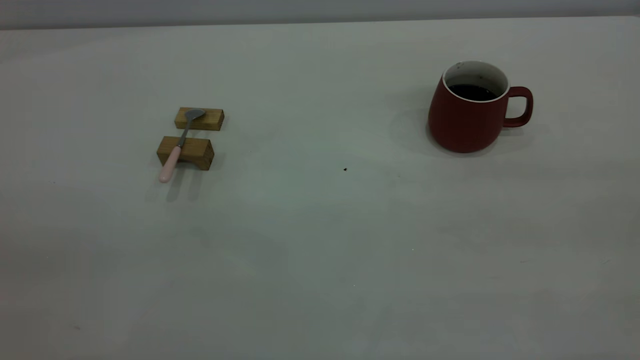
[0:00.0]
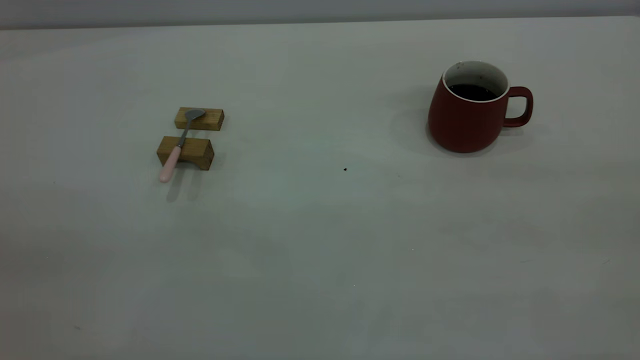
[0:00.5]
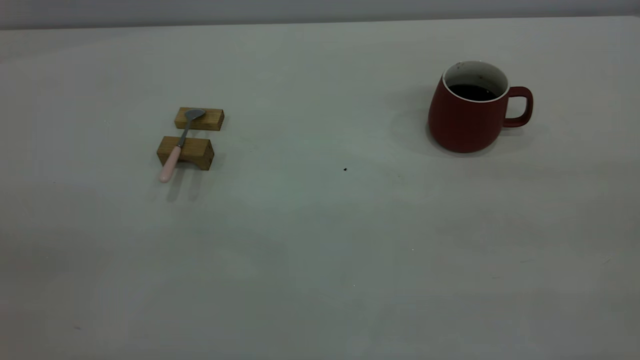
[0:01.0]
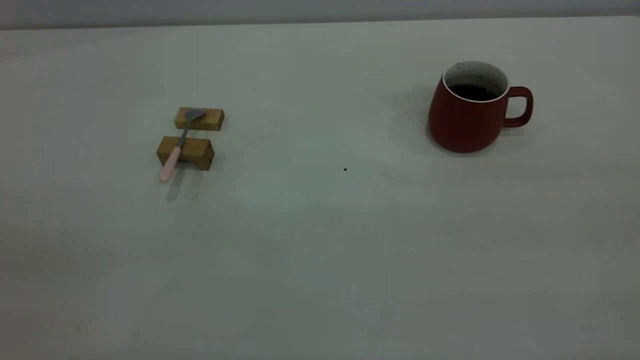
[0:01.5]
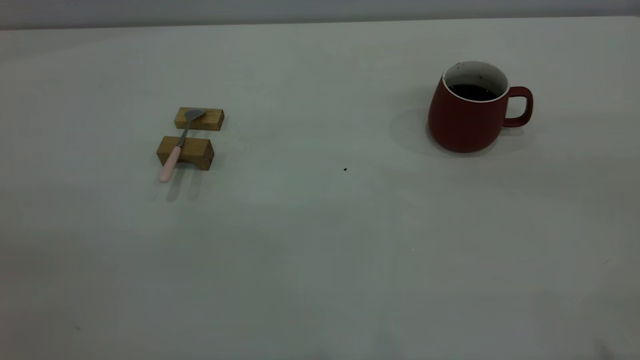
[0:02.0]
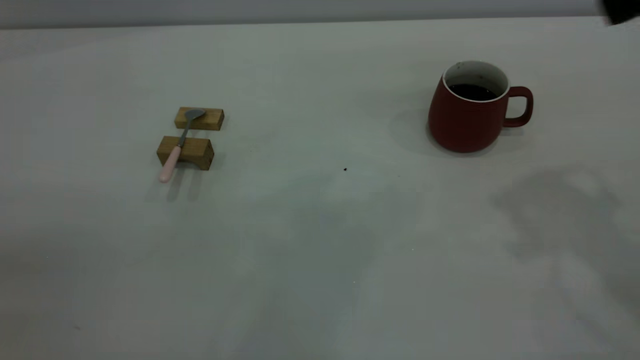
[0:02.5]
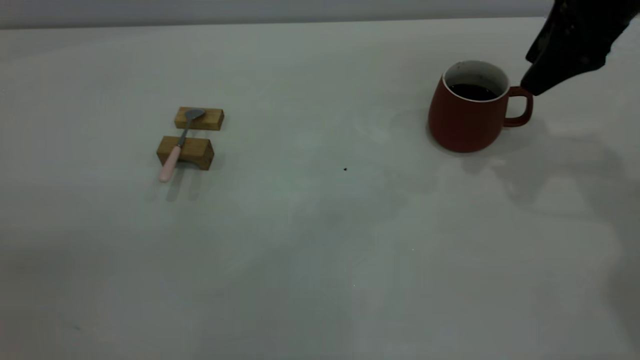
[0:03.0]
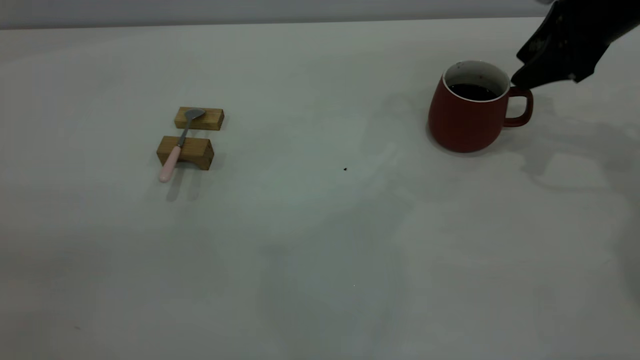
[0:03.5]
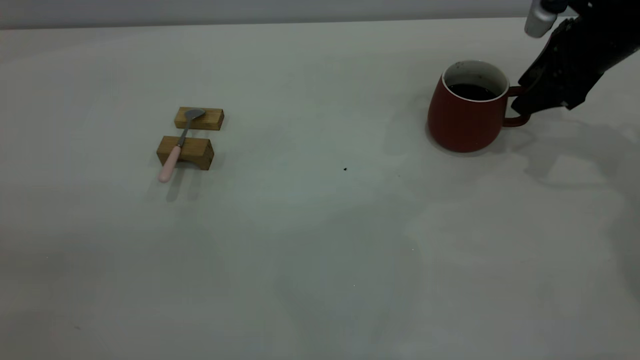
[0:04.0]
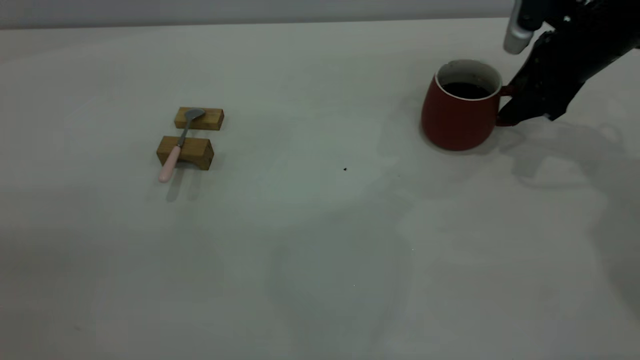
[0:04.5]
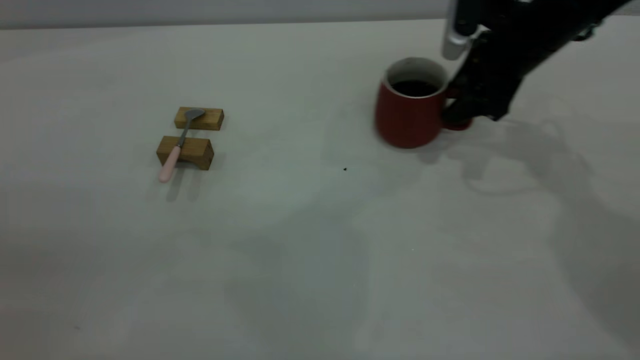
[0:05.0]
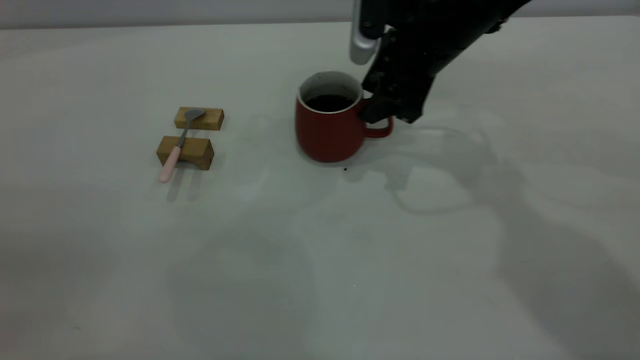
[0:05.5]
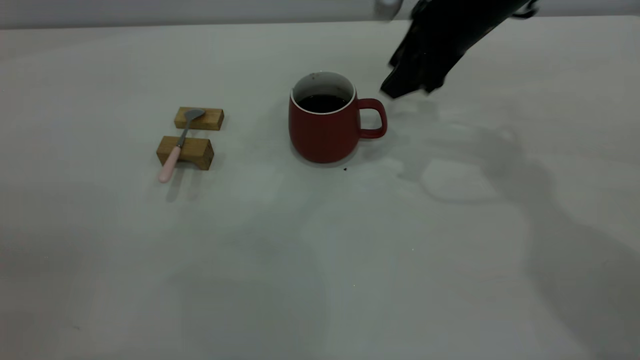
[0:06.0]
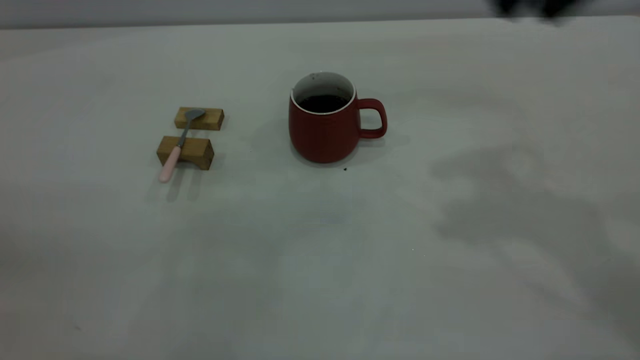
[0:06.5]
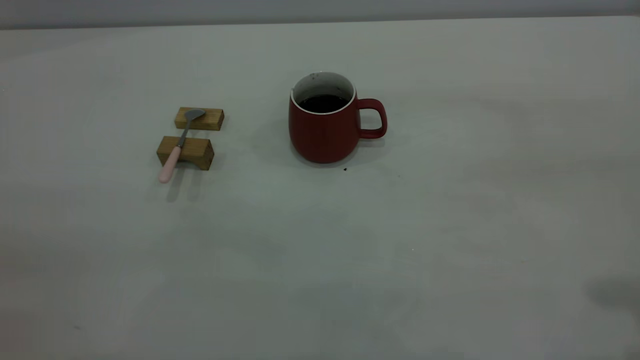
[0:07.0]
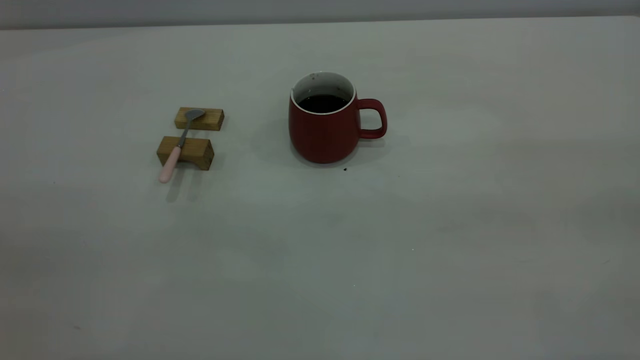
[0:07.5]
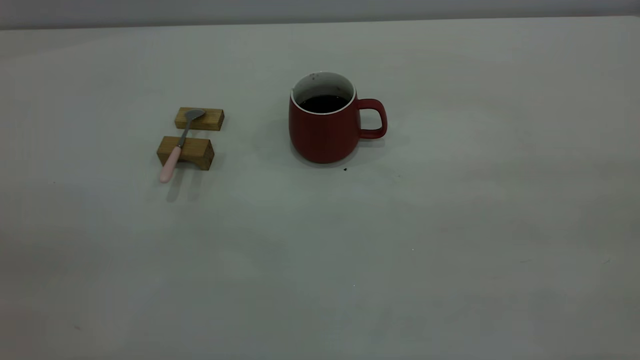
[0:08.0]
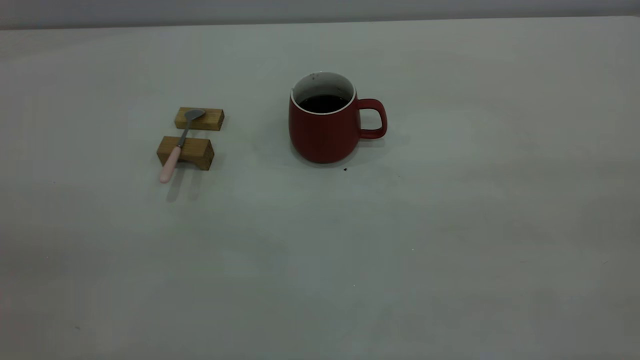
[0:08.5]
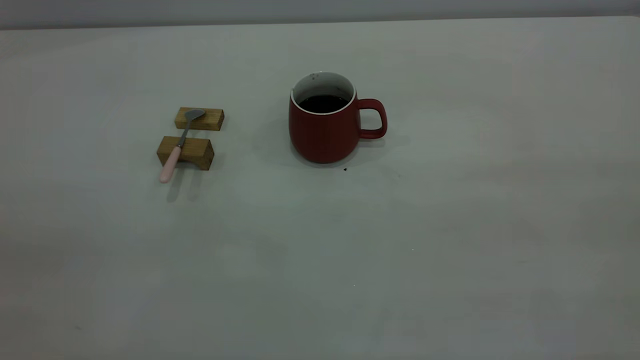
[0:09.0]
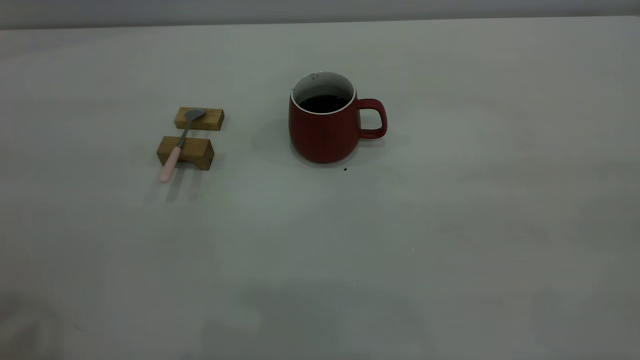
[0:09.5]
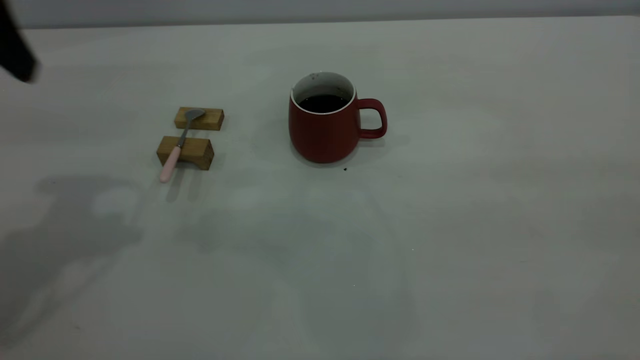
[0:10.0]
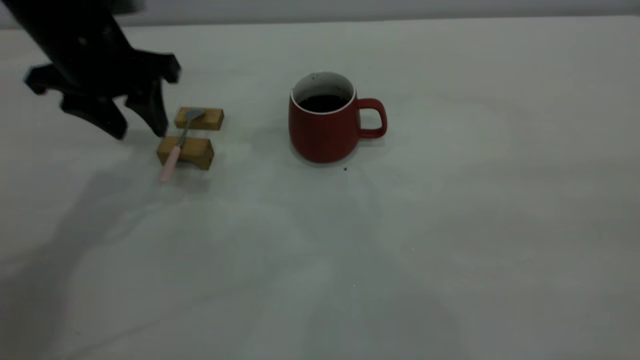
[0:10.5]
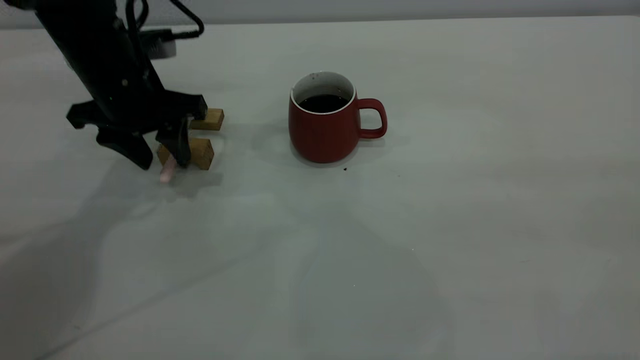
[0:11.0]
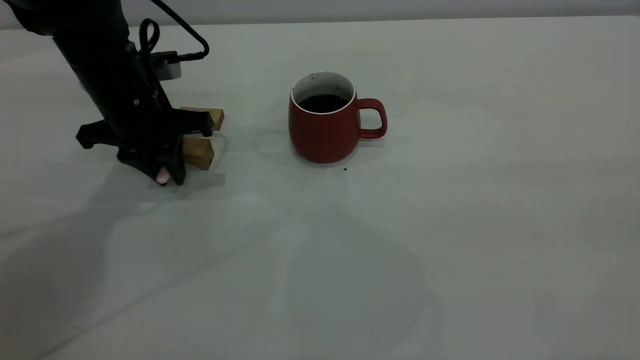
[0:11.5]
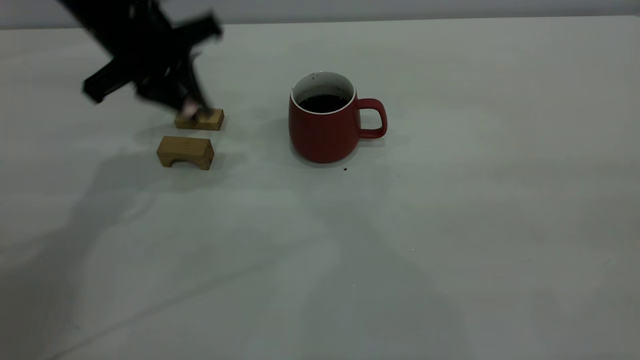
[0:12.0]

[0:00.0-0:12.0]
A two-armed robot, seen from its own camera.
Step, 0:00.0 to 0:06.0: Move the cup with coffee to the center of view.
Step, 0:06.5 to 0:11.5: Pick up the spoon.
0:02.0 to 0:04.0: The right gripper is displaced forward and downward by about 40 cm, and closes up.
0:04.0 to 0:06.0: The right gripper is displaced to the left by approximately 15 cm.
0:06.0 to 0:08.0: The right gripper travels backward and upward by about 50 cm.
0:08.0 to 0:10.0: The left gripper moves forward, roughly 30 cm.
0:10.0 to 0:12.0: The left gripper heads forward, downward and to the right, covering approximately 15 cm, and closes its fingers.

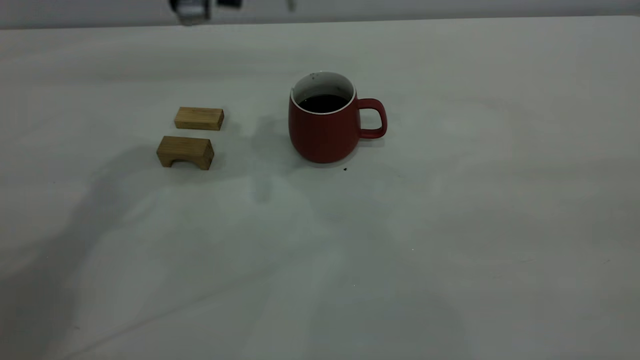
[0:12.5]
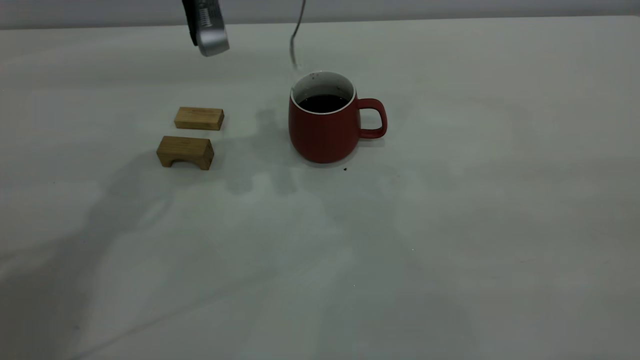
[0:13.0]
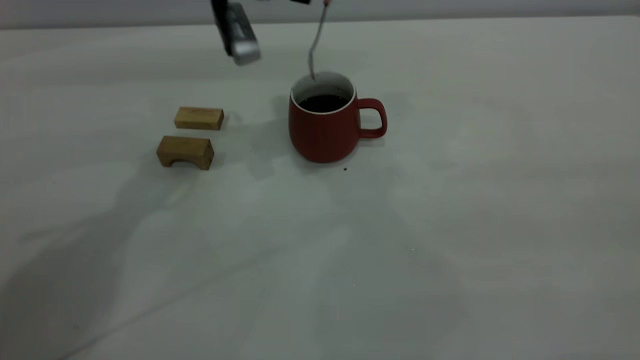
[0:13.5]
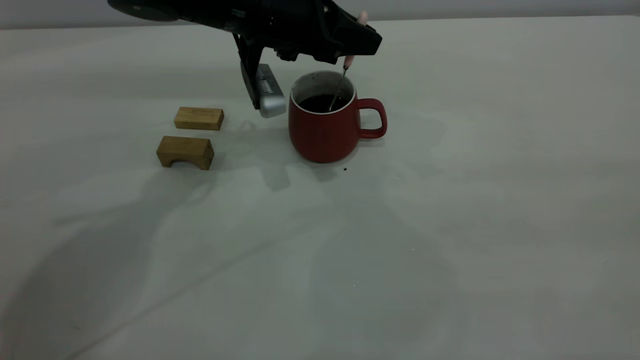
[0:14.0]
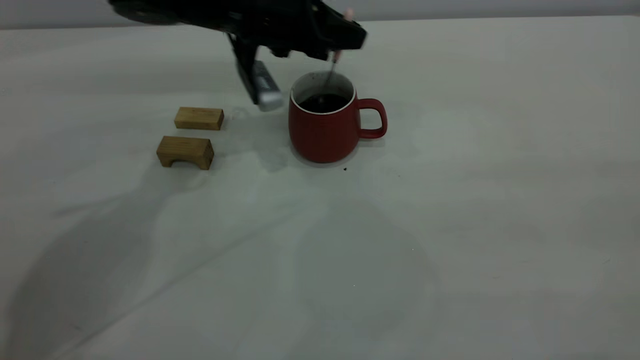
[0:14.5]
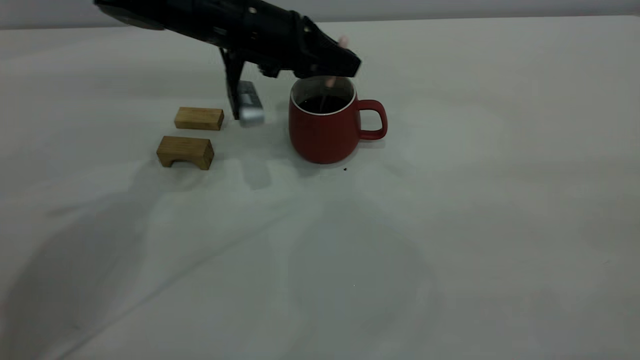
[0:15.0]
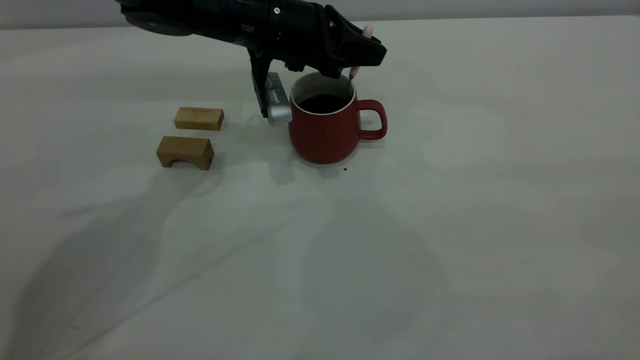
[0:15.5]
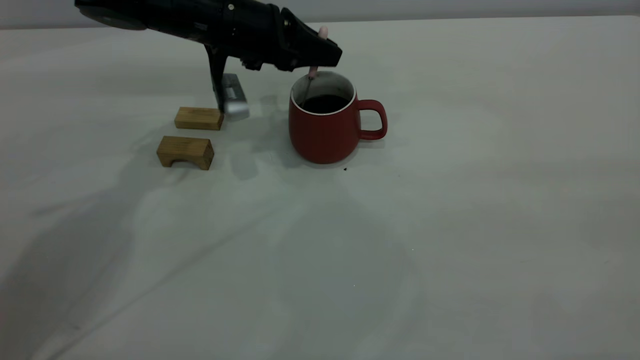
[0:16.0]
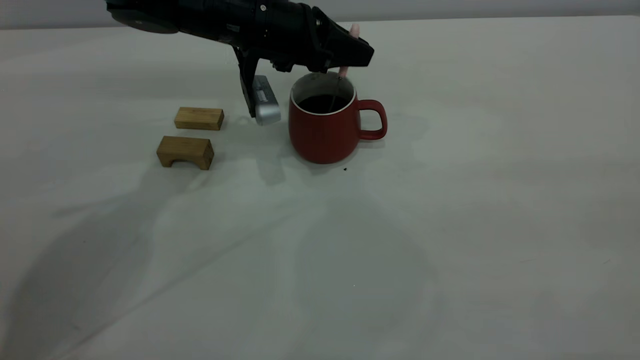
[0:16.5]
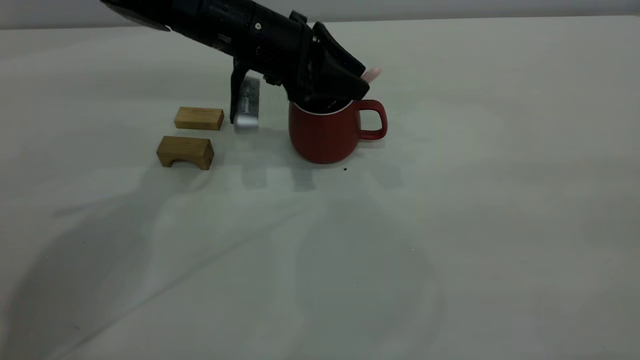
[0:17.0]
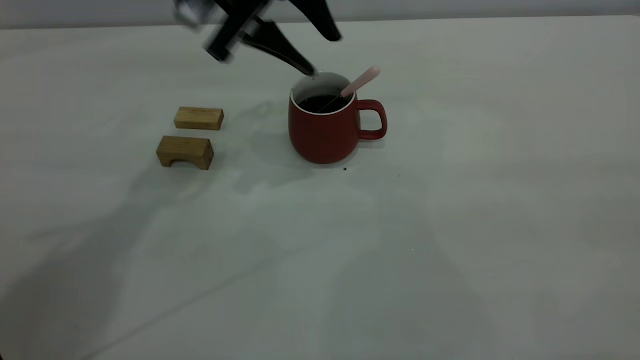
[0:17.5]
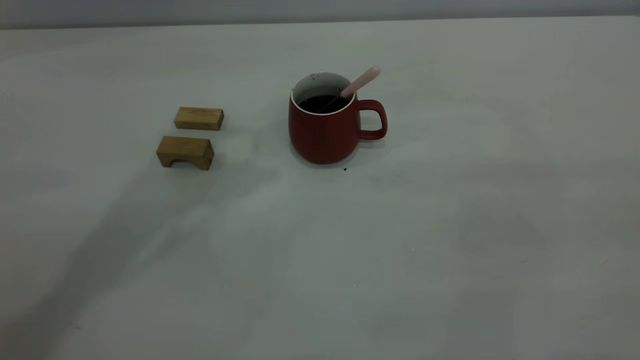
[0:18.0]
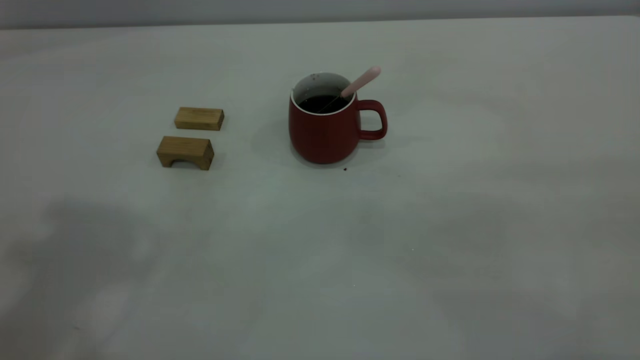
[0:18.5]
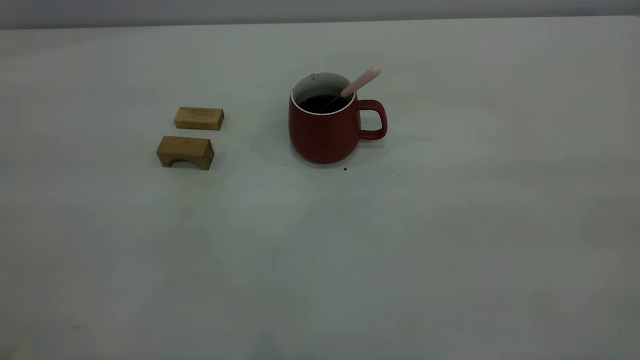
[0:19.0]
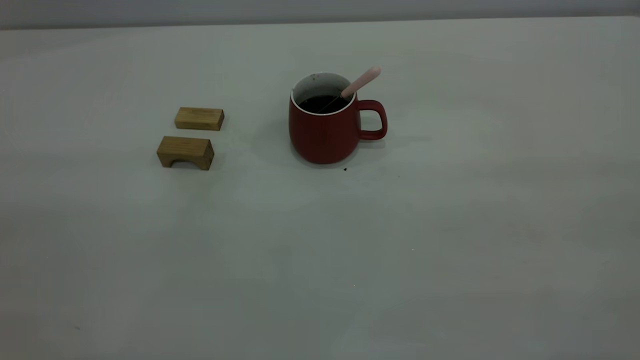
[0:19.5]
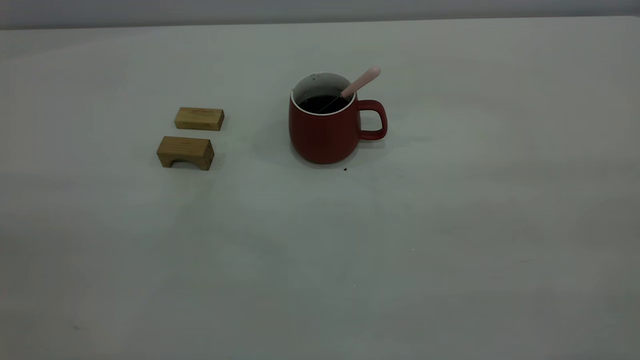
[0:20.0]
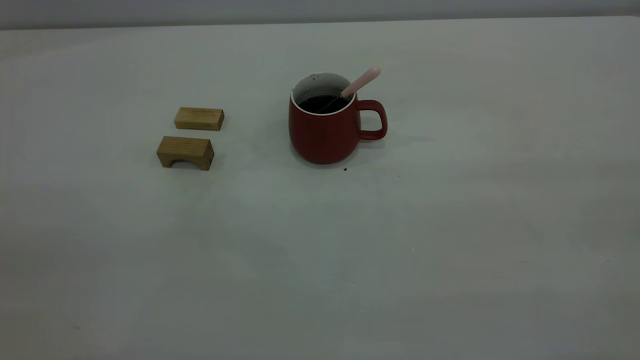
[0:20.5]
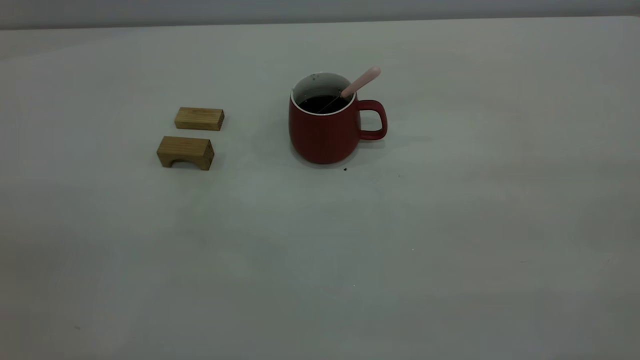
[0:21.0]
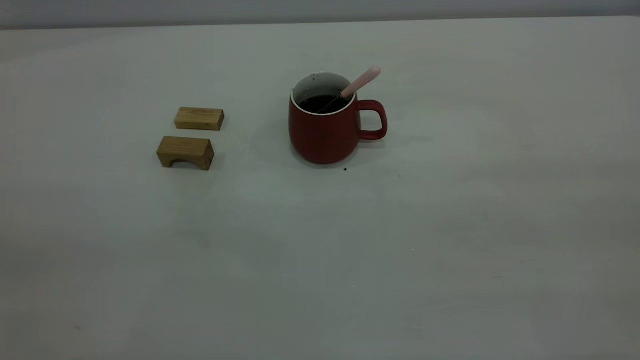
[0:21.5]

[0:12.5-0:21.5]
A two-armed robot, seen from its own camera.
Step, 0:12.5 to 0:17.5: Stir the coffee in the cup.
0:12.5 to 0:14.5: The left gripper heads downward and forward, covering some 15 cm.
0:14.5 to 0:17.0: The left gripper opens its fingers.
0:17.0 to 0:19.5: The left gripper goes some 50 cm backward, upward and to the left.
